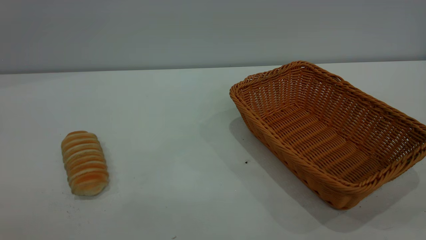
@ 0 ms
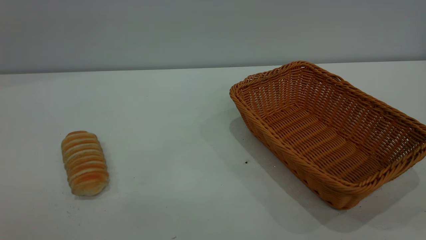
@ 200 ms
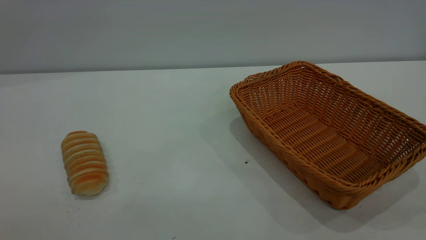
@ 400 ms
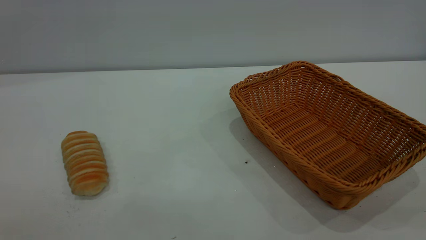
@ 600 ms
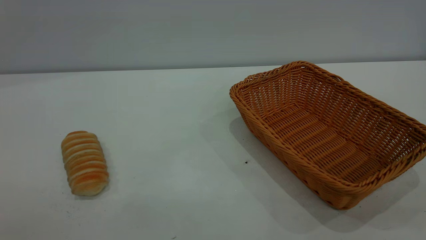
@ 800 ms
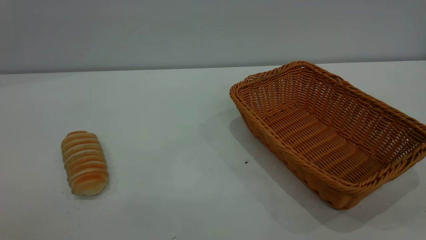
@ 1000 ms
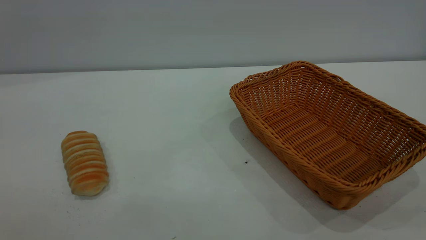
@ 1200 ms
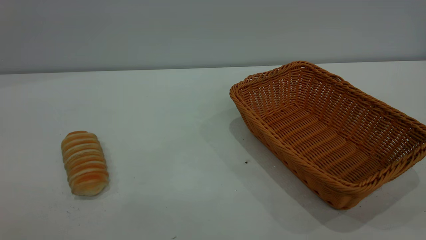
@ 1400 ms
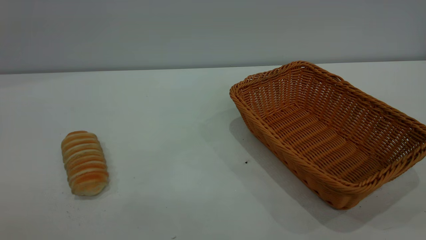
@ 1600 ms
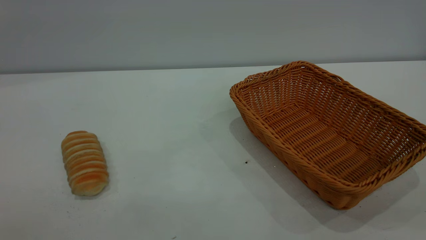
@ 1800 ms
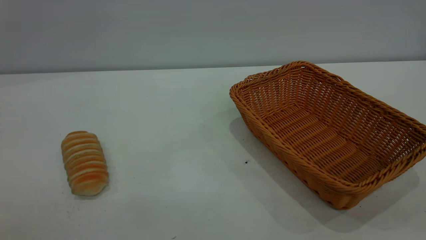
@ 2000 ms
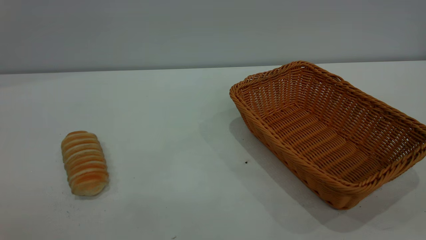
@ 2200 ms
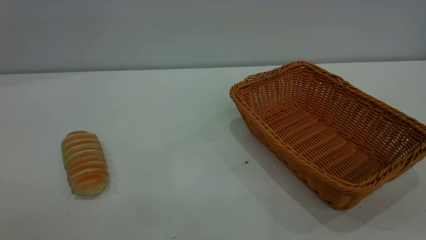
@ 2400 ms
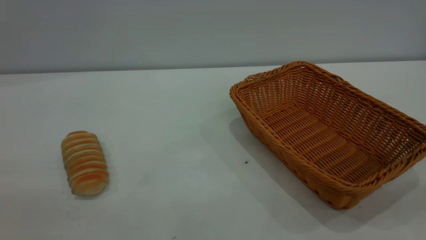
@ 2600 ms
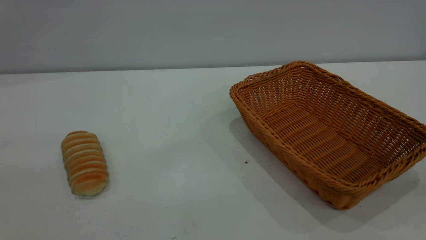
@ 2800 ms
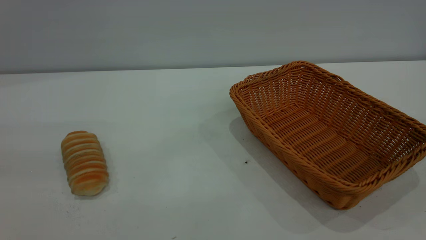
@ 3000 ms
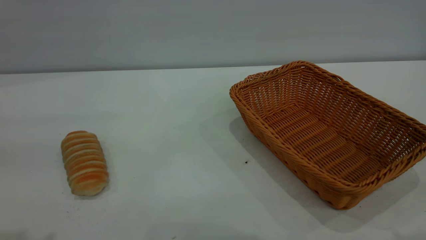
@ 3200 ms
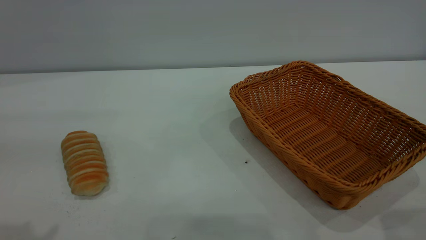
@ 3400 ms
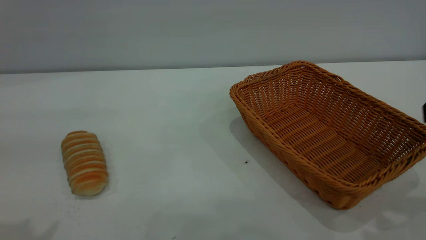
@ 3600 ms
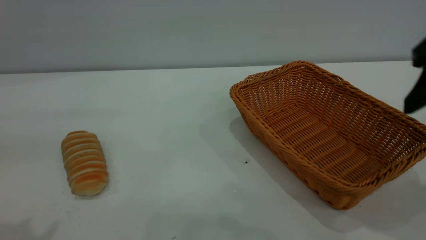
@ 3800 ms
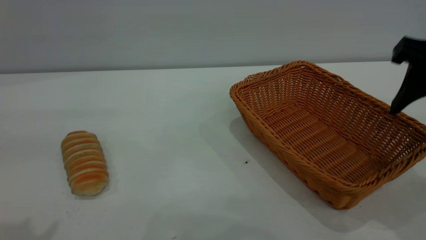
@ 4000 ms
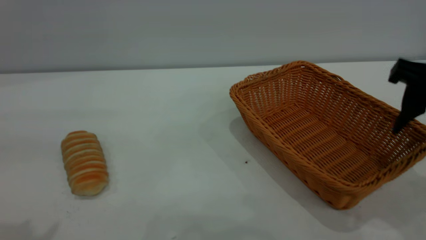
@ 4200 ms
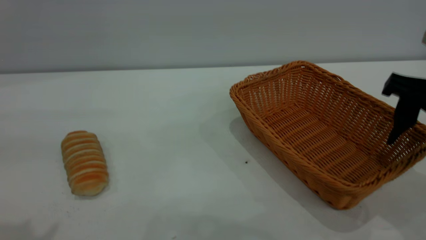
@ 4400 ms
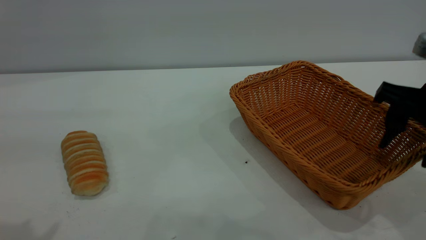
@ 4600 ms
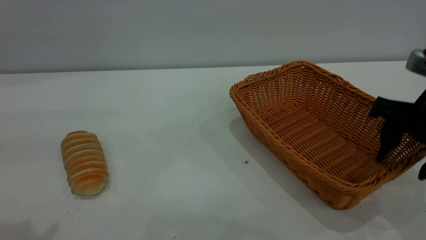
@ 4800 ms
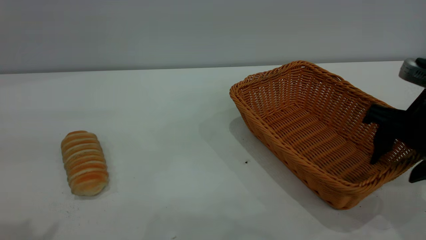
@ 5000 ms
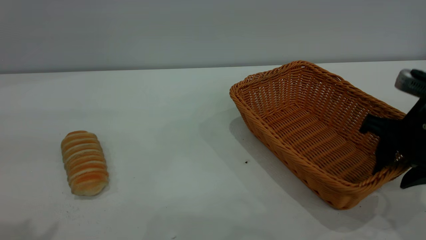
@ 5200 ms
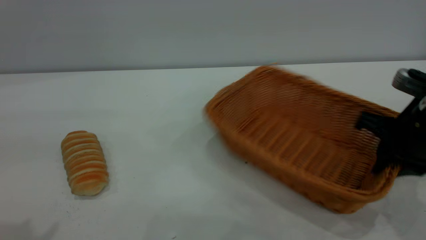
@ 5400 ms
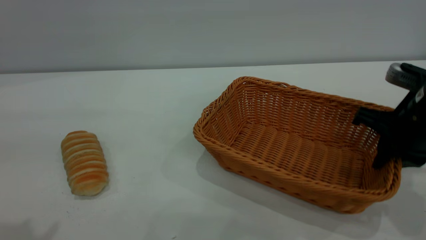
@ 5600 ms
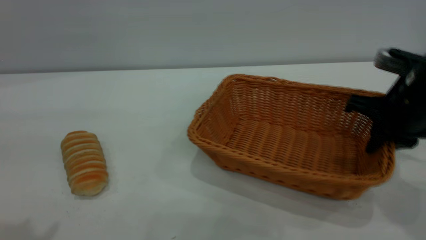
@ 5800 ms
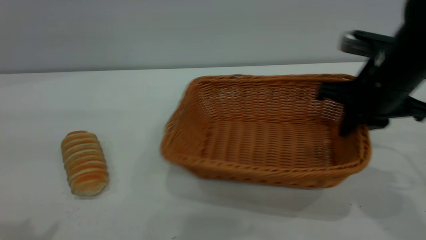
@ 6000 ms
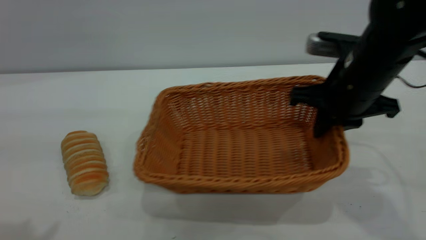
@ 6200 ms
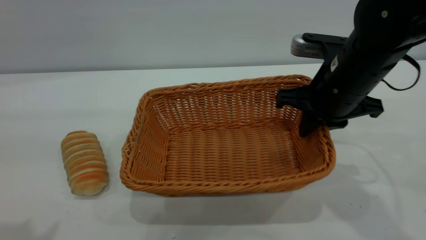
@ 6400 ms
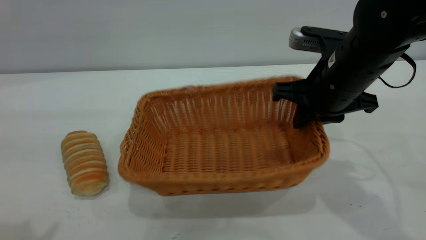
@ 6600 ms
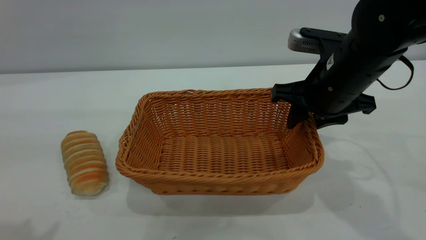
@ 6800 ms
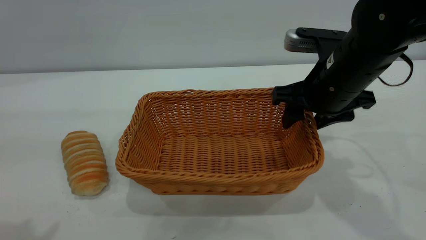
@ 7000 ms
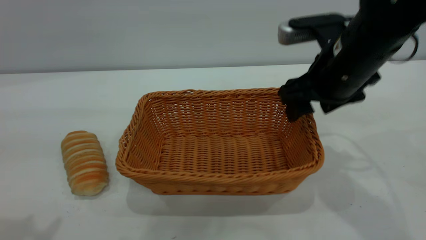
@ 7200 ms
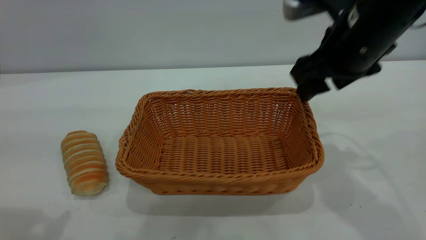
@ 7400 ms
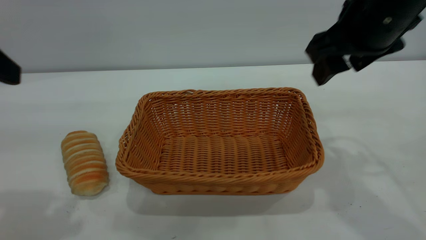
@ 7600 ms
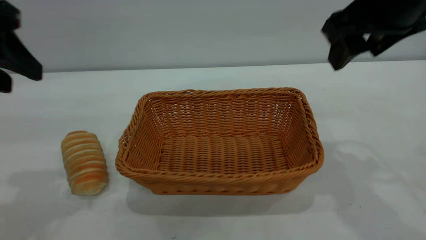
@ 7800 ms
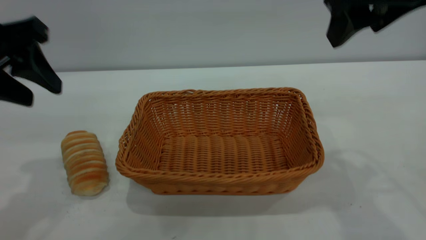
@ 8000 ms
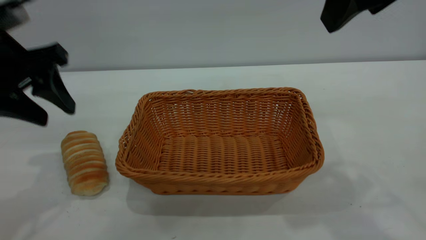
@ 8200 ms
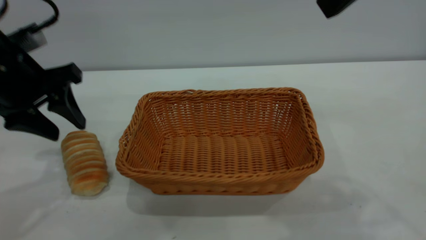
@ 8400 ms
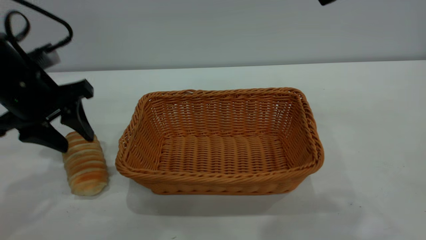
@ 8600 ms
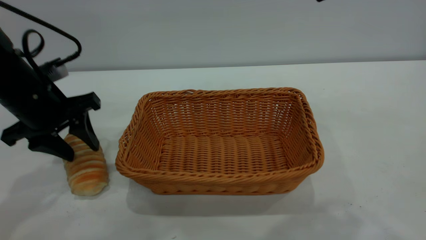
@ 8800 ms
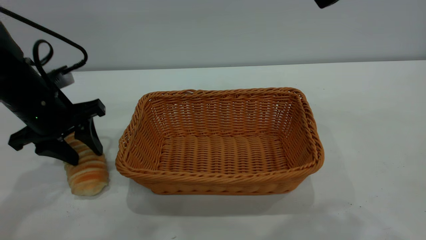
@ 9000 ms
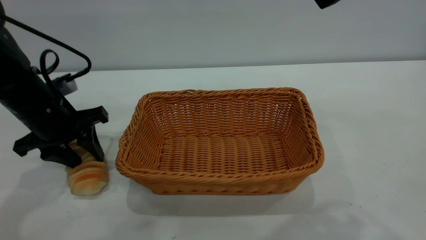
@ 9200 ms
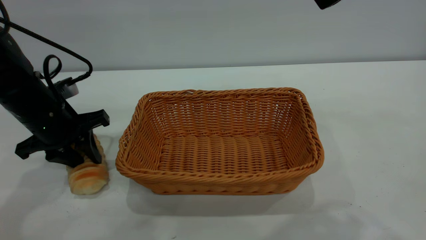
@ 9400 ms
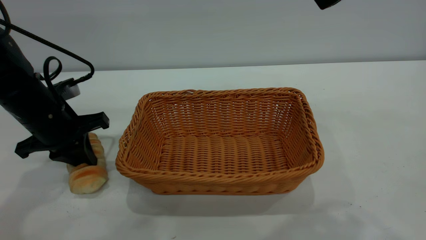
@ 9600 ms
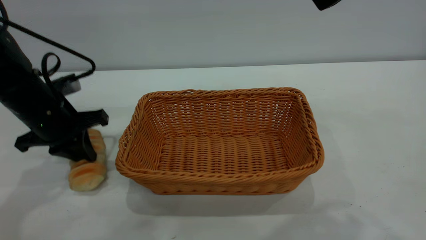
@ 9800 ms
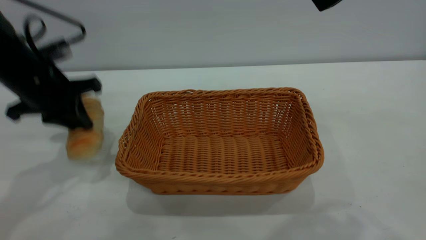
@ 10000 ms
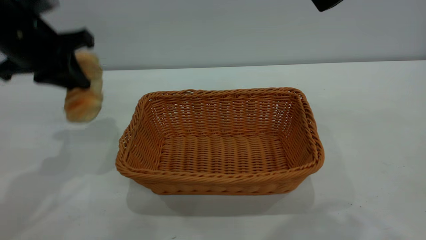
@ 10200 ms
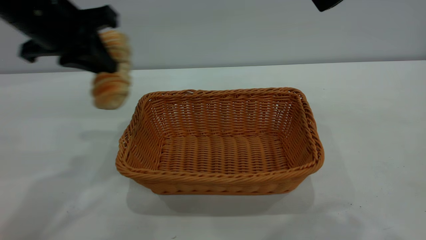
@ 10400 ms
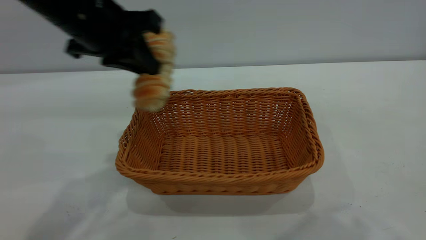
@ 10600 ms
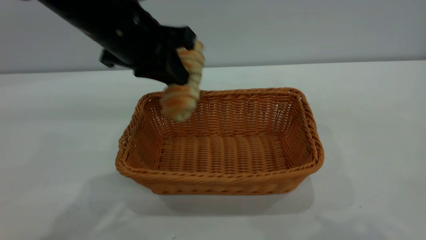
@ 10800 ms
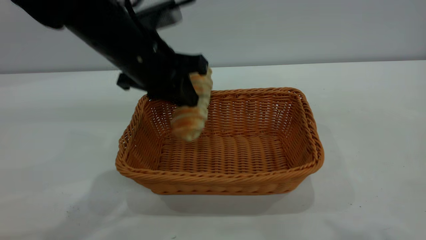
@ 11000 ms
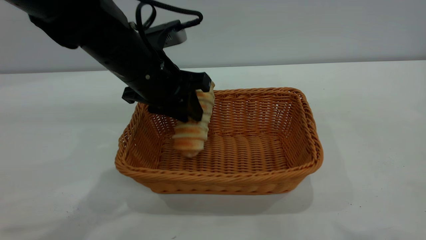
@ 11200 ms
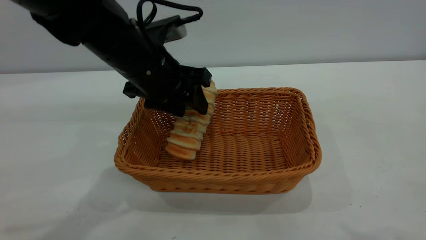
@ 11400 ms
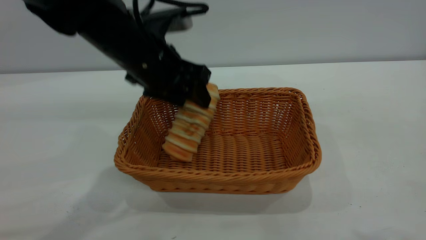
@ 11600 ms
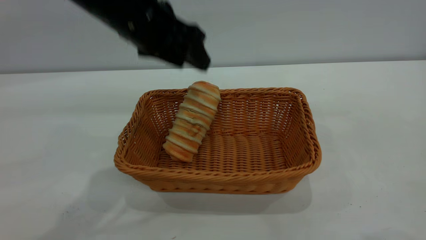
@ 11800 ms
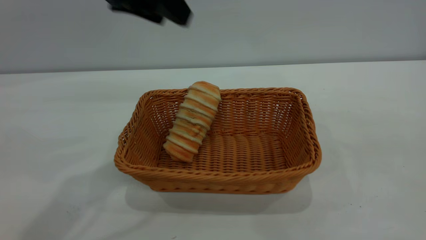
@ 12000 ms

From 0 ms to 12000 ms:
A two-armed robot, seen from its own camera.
Task of the whole recording: One hand grasps the yellow basket and places it in the middle of the table, while the other hand picks up the long bread and puts it into the yellow basket.
Step, from 0 ms to 7400 ms: Move the basket to the center of view.
Step, from 10400 ms to 11800 ms: place the bread into the basket.
From 0 ms to 1600 ms: The two grippers keep their place.
From 3000 ms to 4400 ms: The right gripper moves forward and downward, some 20 cm.
From 4400 ms to 6000 ms: The right gripper heads forward and to the left, covering approximately 10 cm, and closes its fingers.
From 6000 ms to 7600 ms: The left gripper travels forward by some 5 cm. The right gripper is displaced upward by approximately 10 cm, and opens up.
From 7600 ms to 9000 ms: The right gripper moves backward and upward, about 20 cm. Meanwhile the left gripper moves downward and forward, some 20 cm.
From 9000 ms to 10400 ms: The left gripper goes some 15 cm upward and to the right, and closes up.
From 10400 ms to 12000 ms: The right gripper moves to the right and backward, about 10 cm; the left gripper travels upward by roughly 5 cm, and opens up.

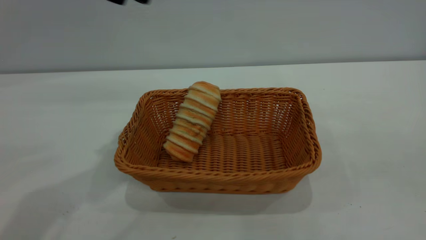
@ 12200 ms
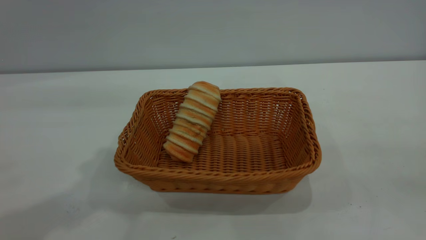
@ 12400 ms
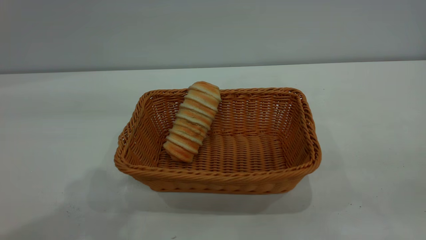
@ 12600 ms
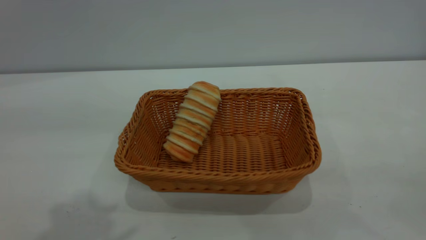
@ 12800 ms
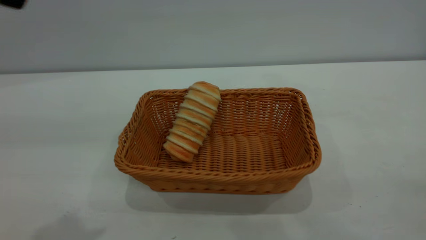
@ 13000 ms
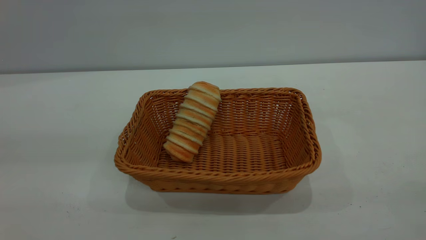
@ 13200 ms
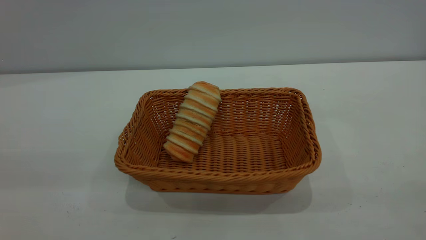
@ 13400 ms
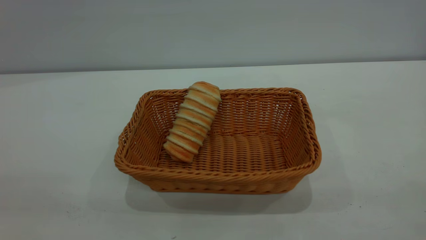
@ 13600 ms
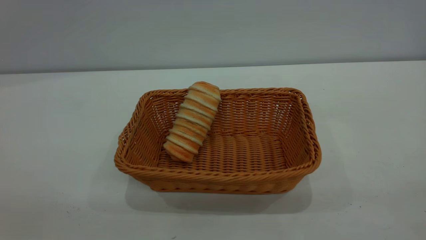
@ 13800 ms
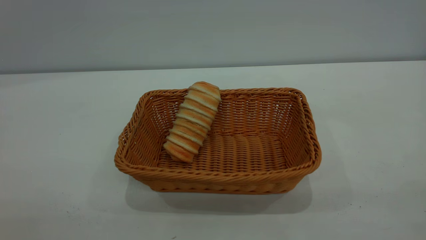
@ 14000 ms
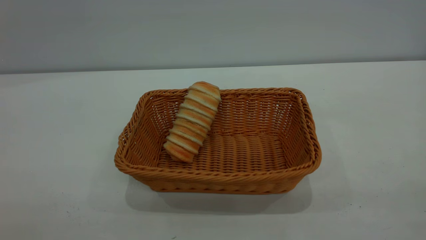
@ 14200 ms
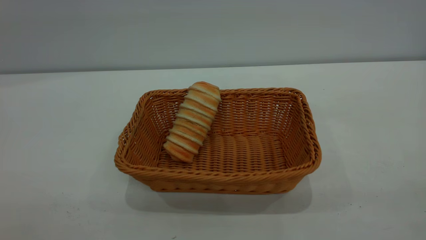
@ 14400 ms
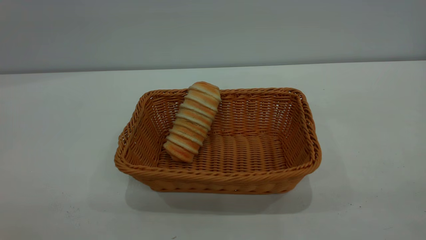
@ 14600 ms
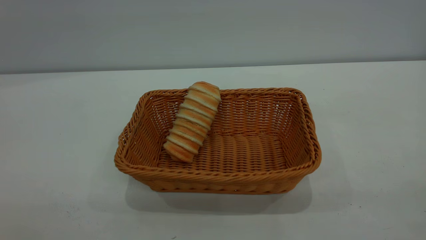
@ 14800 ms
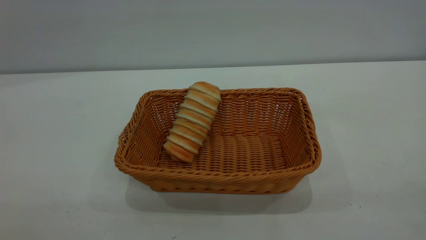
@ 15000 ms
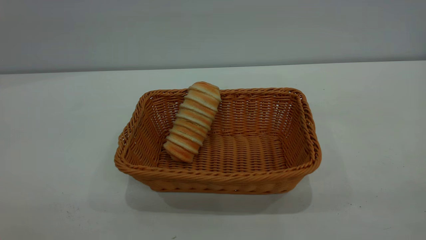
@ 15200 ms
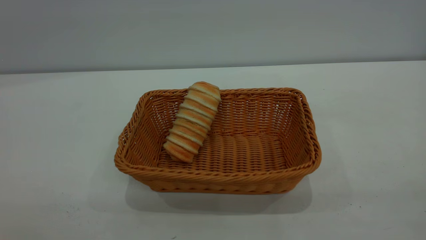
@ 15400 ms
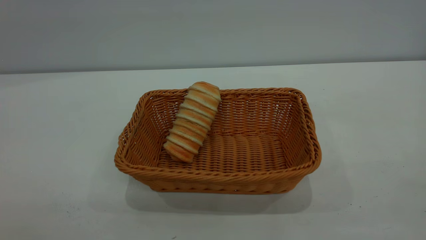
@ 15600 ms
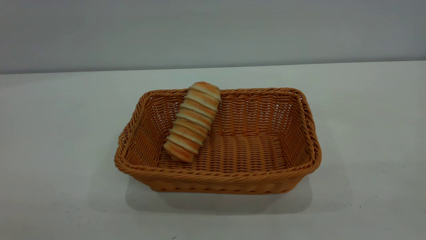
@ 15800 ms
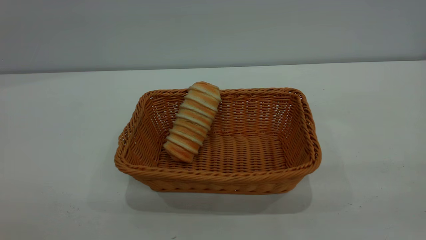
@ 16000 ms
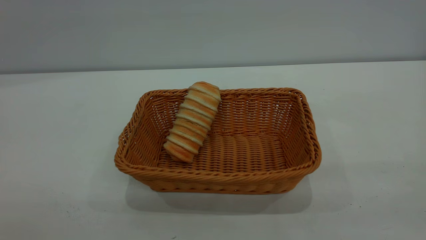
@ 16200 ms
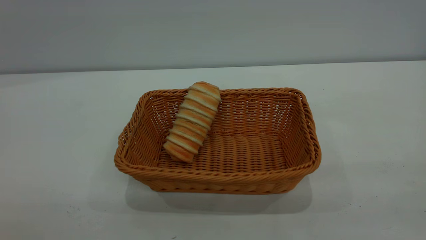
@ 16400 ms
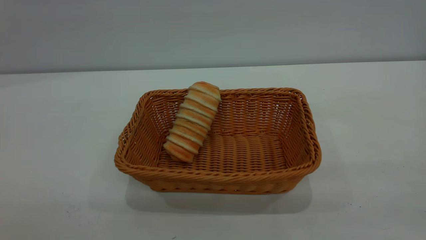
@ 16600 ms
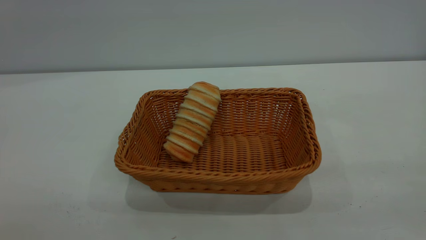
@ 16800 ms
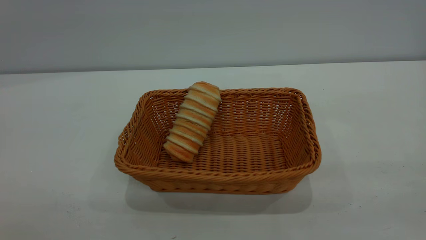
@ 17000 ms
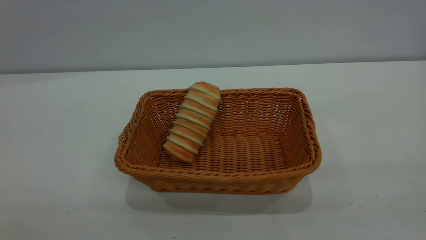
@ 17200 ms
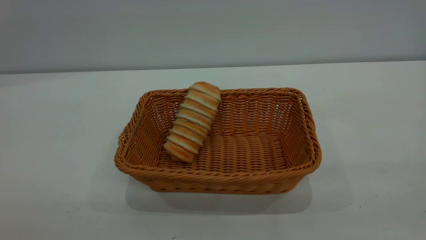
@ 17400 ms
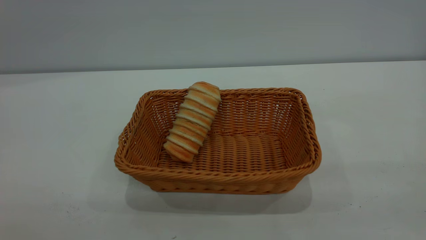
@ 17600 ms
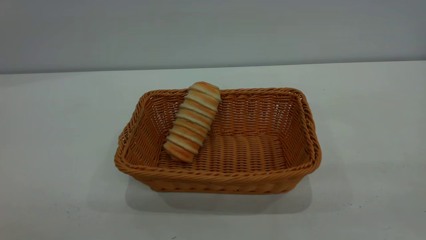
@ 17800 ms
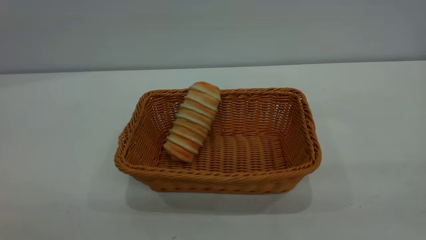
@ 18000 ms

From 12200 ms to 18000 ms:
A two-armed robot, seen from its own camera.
Task of the whole recording: One hand grasps the yellow basket and places it in the middle of the table, while the other hand picks up the long bread and puts it into the yellow basket.
From 16600 ms to 18000 ms: The two grippers keep their place.
